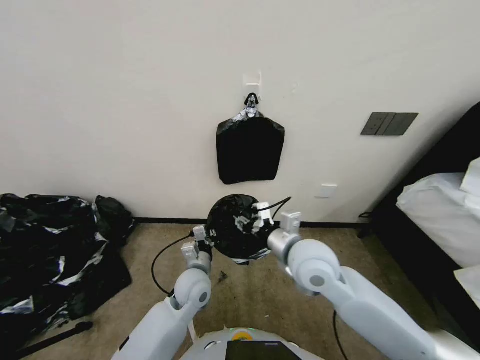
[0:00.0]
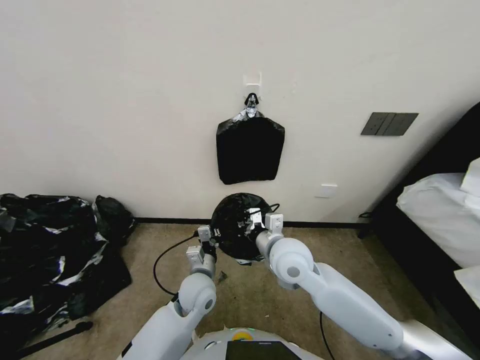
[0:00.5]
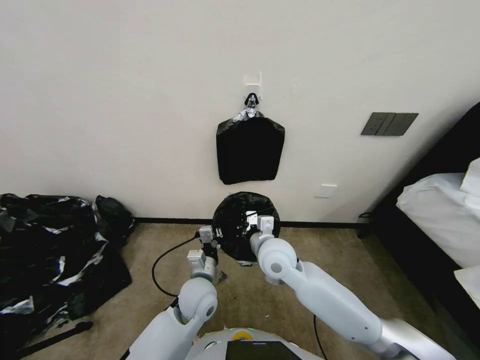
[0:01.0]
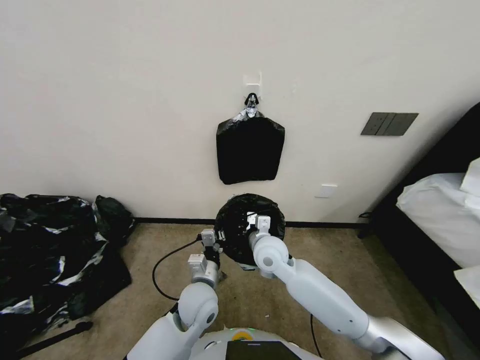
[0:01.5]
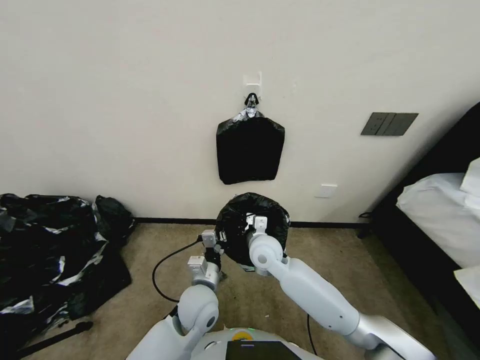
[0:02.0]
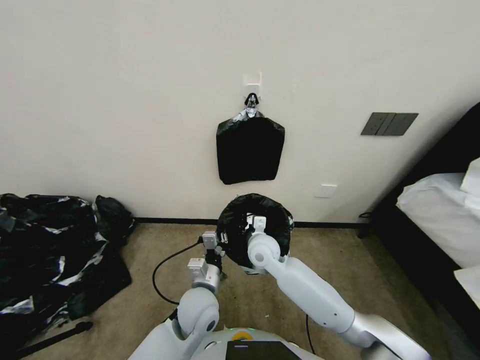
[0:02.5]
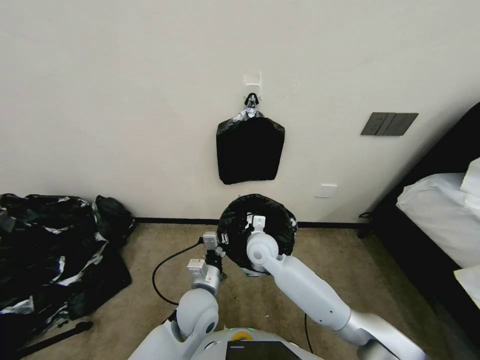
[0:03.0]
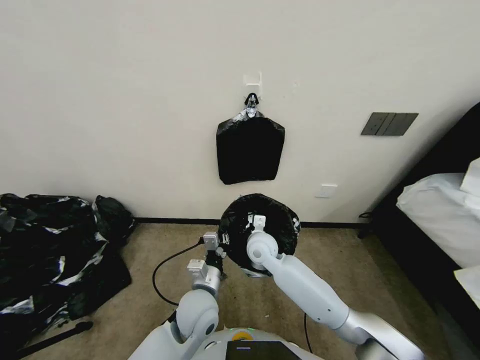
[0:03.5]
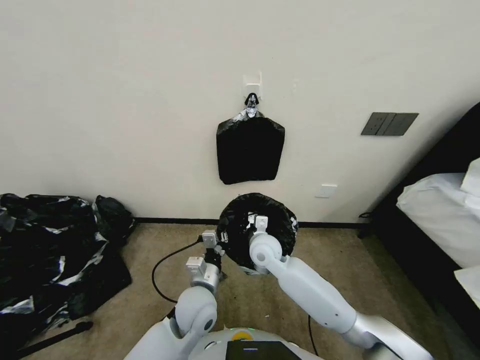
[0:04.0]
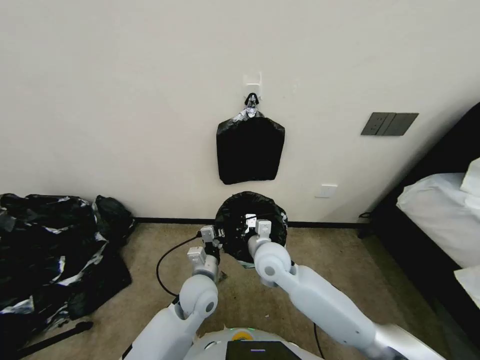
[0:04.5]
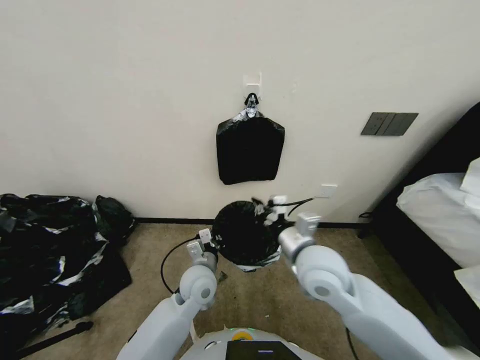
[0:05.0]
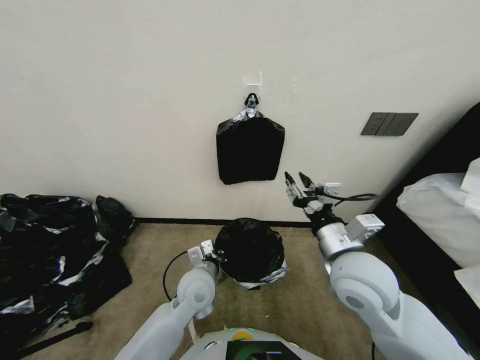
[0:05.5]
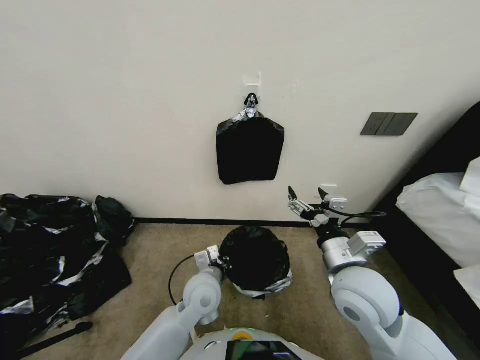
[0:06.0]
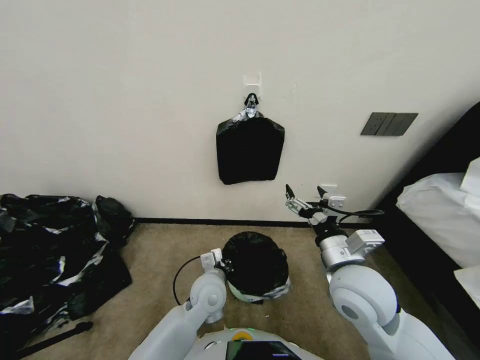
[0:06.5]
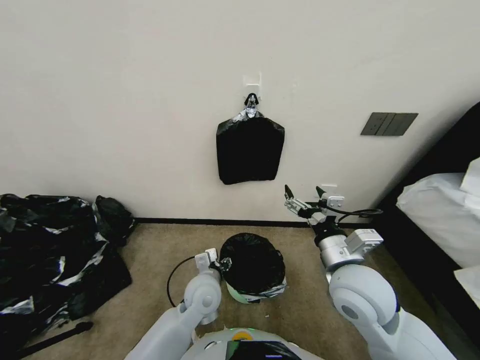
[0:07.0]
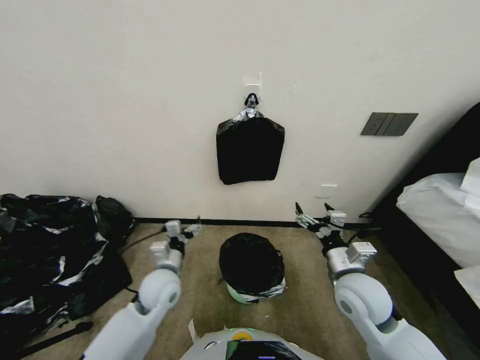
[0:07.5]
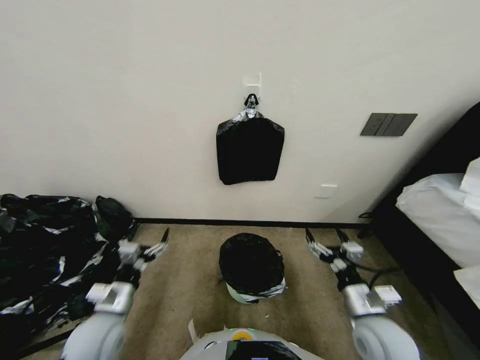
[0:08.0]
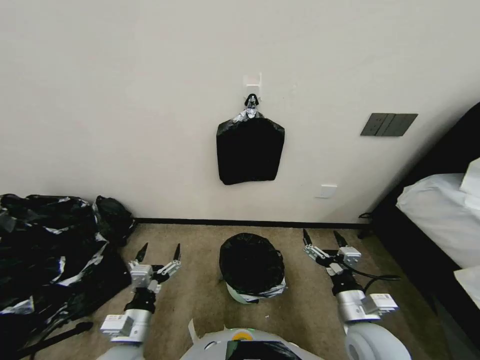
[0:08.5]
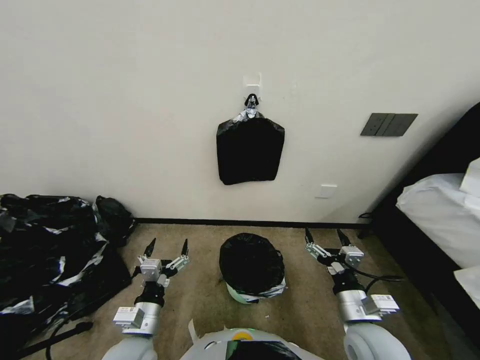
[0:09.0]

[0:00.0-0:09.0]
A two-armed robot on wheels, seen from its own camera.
Task of the whole recording: Place a trash bag onto the trash bin.
0:00.0 to 0:02.0: The right gripper heads downward, to the left and forward, covering some 15 cm, and closes up, while the left gripper changes place by roughly 5 cm.
0:02.0 to 0:04.5: The grippers make only small movements.
0:04.5 to 0:07.0: The left gripper opens up; the right gripper shifts approximately 20 cm to the right, backward and upward, and opens its fingers.
0:07.0 to 0:09.0: The left gripper shifts approximately 20 cm to the left and backward, and opens up; the right gripper travels downward and backward by some 15 cm.
